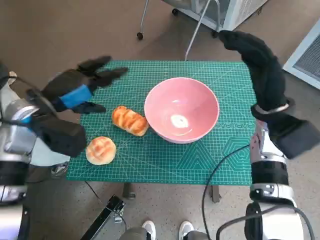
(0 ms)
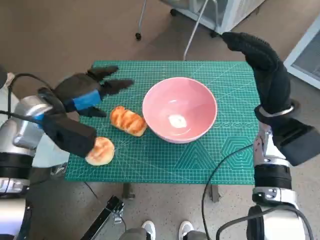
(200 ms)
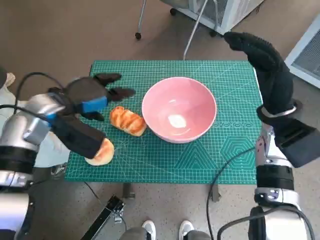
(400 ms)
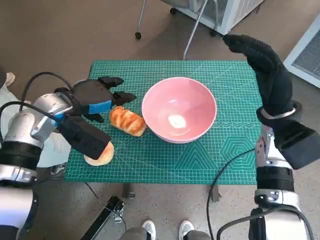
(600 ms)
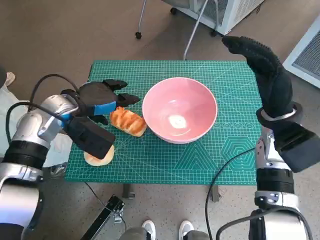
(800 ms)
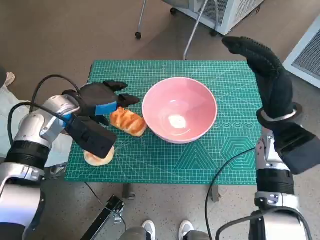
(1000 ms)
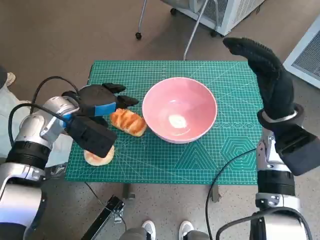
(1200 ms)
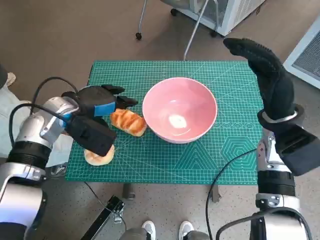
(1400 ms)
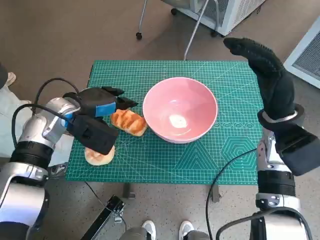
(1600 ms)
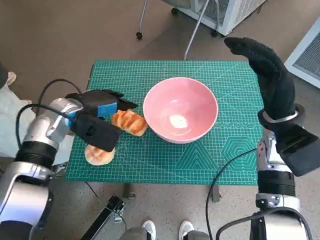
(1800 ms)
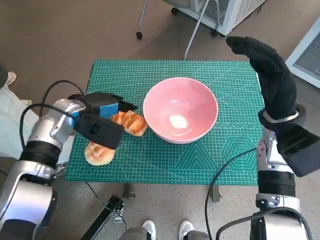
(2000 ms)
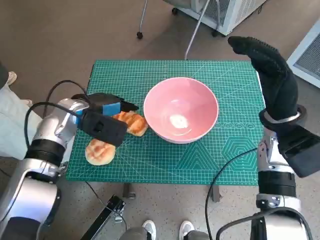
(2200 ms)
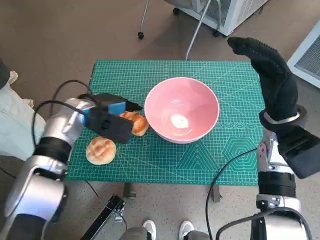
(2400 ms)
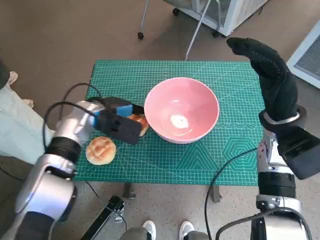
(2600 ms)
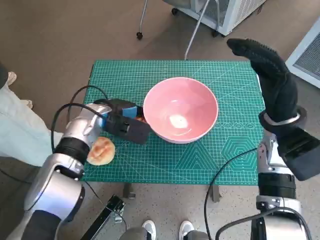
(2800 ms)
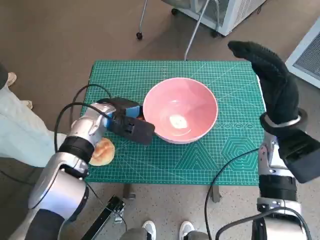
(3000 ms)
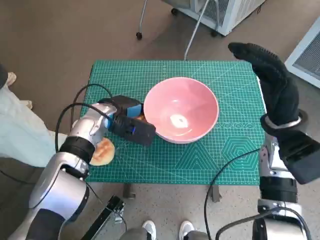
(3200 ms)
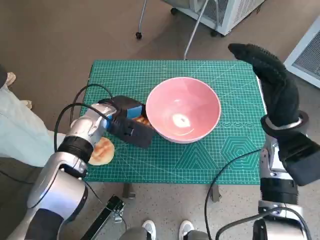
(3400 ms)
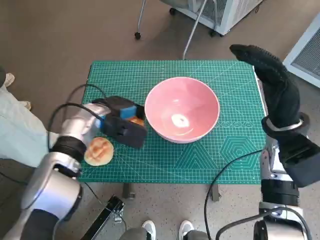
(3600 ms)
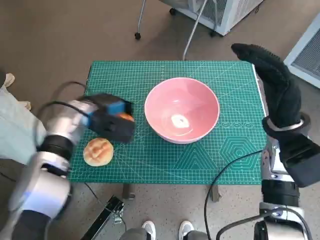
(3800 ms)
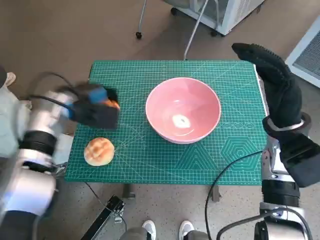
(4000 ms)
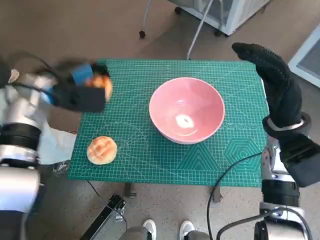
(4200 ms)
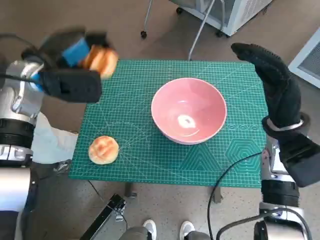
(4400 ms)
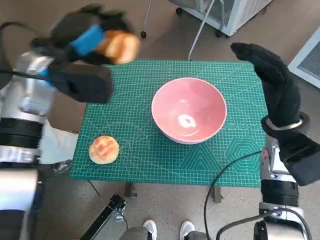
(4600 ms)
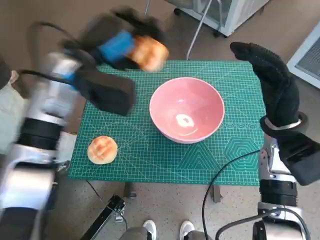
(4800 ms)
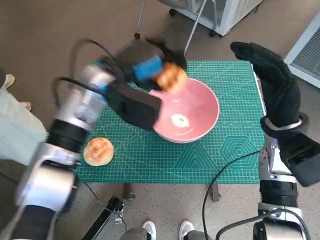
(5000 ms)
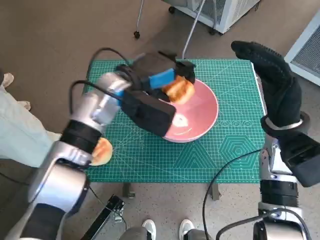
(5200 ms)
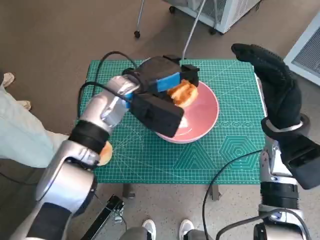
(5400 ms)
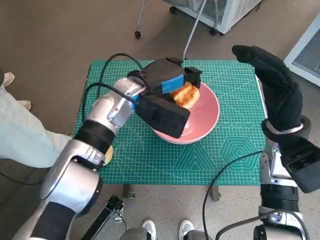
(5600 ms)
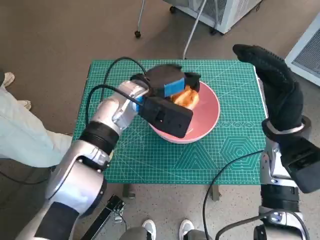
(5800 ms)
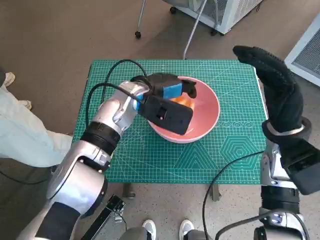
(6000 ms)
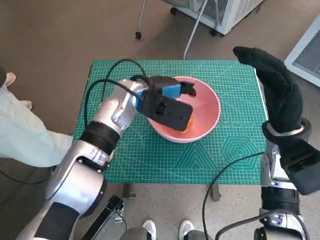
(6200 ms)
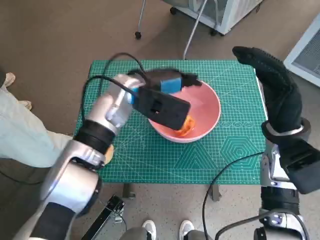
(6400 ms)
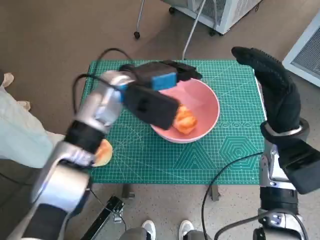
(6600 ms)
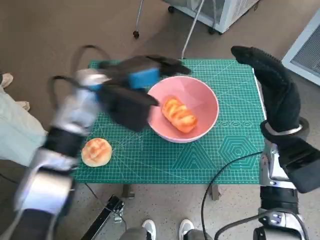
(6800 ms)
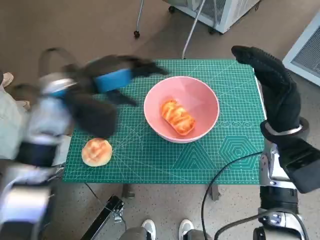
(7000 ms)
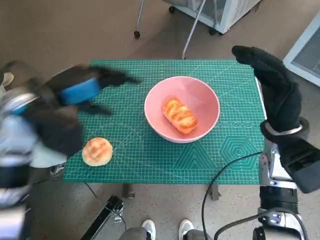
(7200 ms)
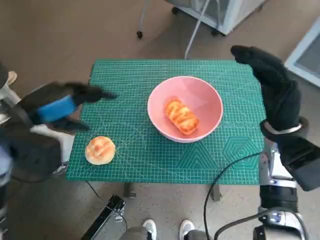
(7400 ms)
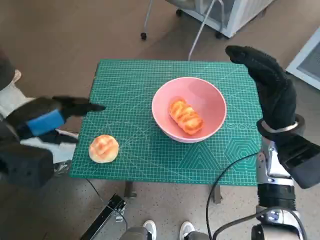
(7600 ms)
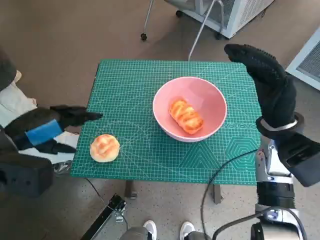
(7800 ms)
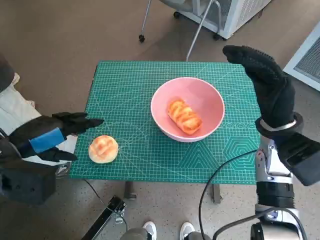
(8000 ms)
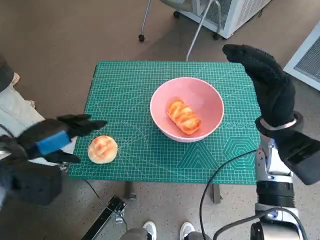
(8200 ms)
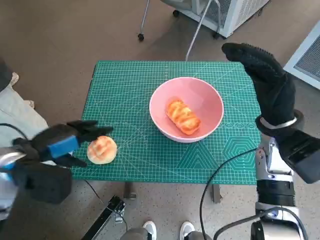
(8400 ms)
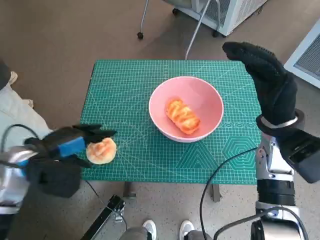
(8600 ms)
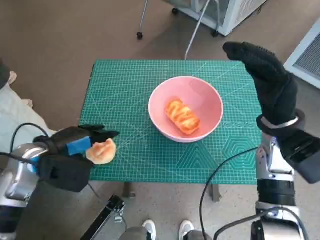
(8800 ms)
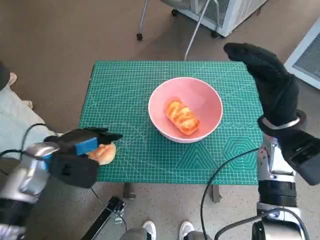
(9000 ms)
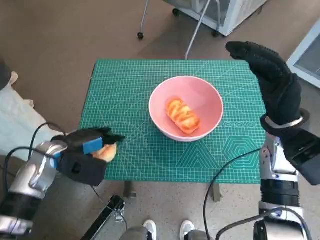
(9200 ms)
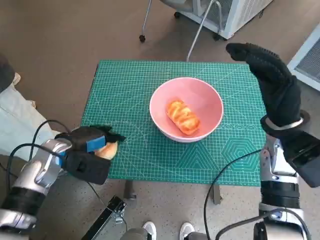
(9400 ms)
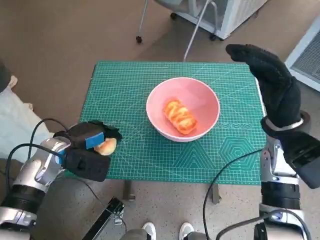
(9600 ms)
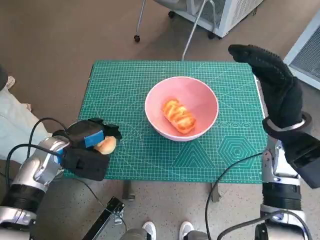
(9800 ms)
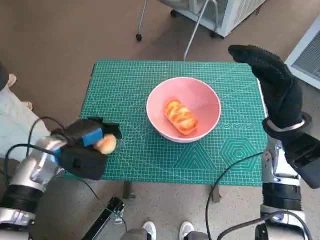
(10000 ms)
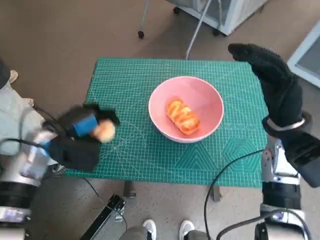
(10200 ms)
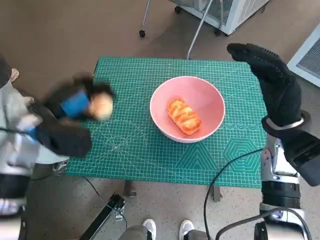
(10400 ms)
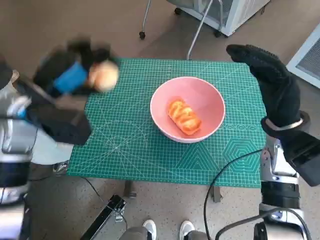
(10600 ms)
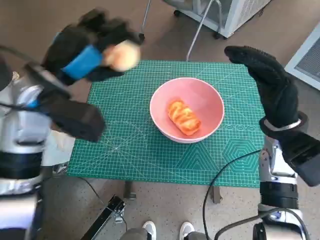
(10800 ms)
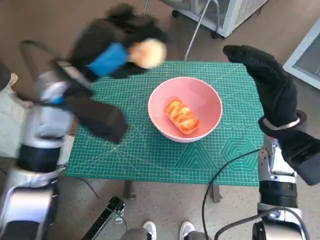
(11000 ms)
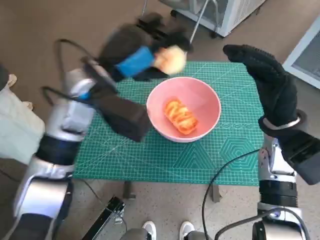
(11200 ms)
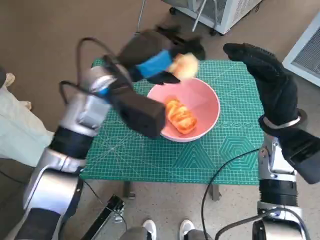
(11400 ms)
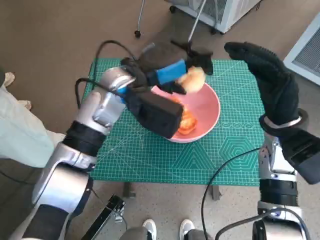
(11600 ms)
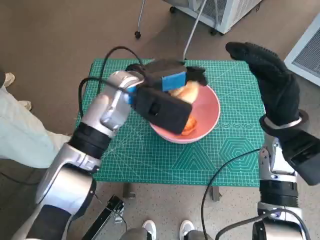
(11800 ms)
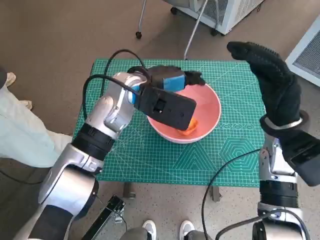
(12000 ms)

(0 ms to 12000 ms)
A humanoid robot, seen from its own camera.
Task of the whole recording: Push the bowl to the center of the table and put the bread into the bowl.
Step, 0 ms - 3200 ms: Grasp the long bread with left hand.
Step, 3400 ms - 6600 ms: Place the long bread in pink bowl with left hand.
Step, 6800 ms - 9800 ms: Grasp the round bread with left hand.
0 ms - 1600 ms: The left hand moves some 5 cm.
1600 ms - 3000 ms: The left hand heads to the right, covering approximately 5 cm.
3000 ms - 4400 ms: The left hand travels upward and to the left by some 15 cm.
4400 ms - 6000 ms: The left hand shifts about 15 cm to the right.
6000 ms - 7600 ms: The left hand goes about 25 cm to the left and backward.
7600 ms - 9000 ms: The left hand shifts about 10 cm downward.
9000 ms - 10400 ms: The left hand is displaced upward by roughly 5 cm.
10400 ms - 12000 ms: The left hand is displaced to the right by some 20 cm.

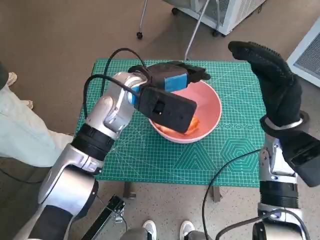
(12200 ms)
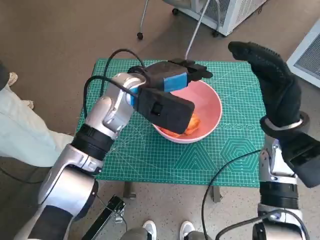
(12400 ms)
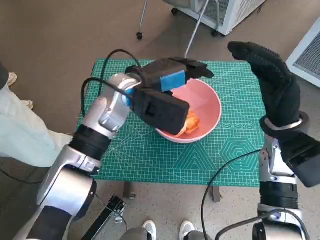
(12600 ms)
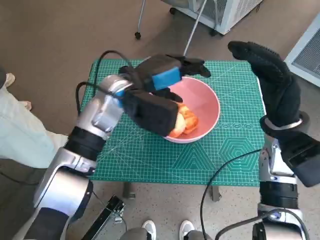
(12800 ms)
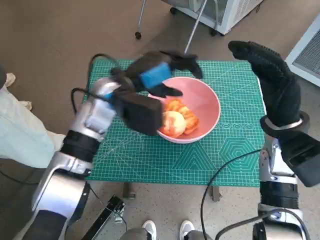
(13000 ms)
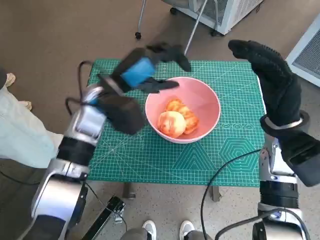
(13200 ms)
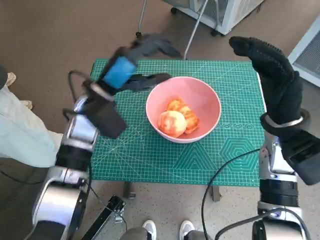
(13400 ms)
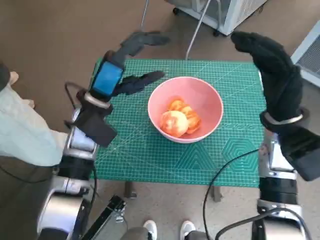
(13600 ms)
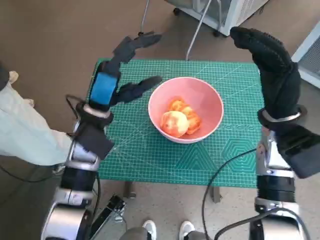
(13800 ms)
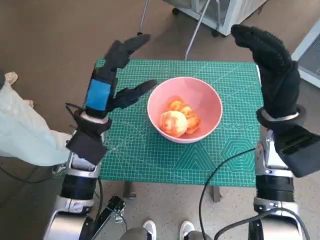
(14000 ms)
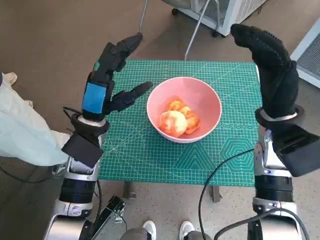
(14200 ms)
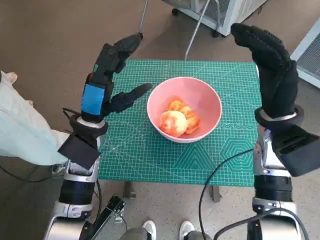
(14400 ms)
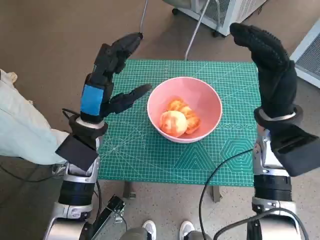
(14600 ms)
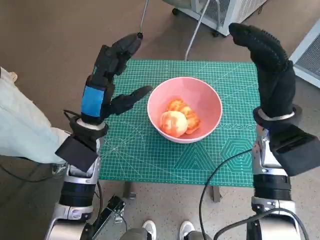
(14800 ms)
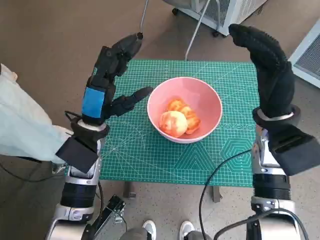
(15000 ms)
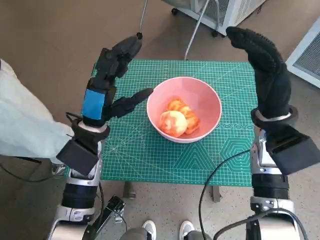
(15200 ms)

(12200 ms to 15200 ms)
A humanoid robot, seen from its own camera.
Task of the whole recording: Push the bowl to the center of the table and put the bread into the bowl.
12200 ms - 13800 ms: The left hand heads to the left and downward, covering approximately 10 cm.

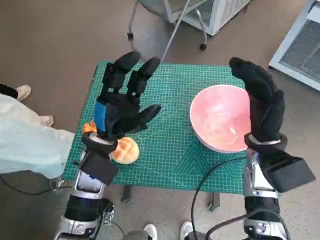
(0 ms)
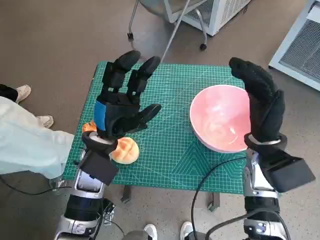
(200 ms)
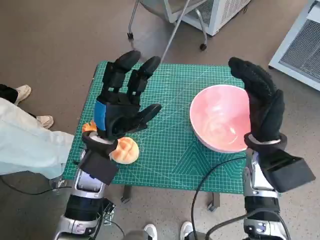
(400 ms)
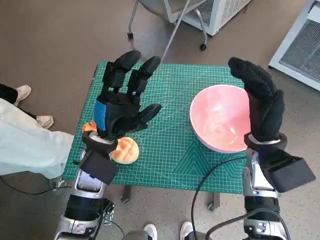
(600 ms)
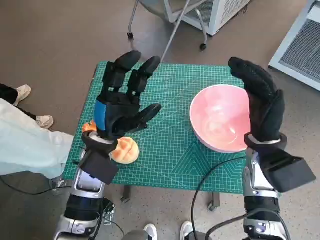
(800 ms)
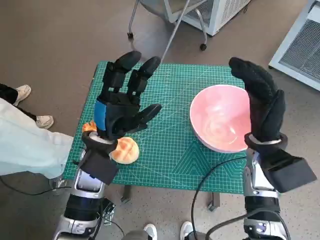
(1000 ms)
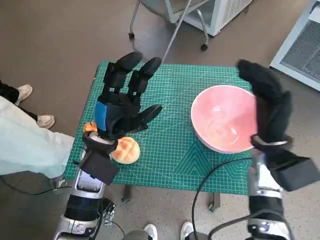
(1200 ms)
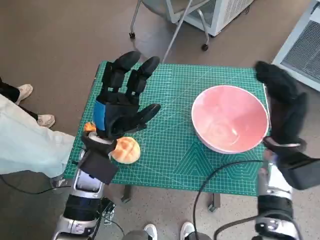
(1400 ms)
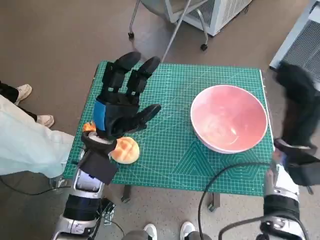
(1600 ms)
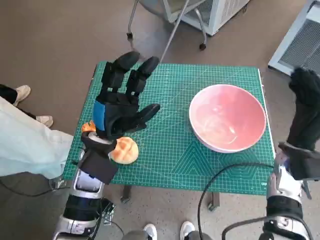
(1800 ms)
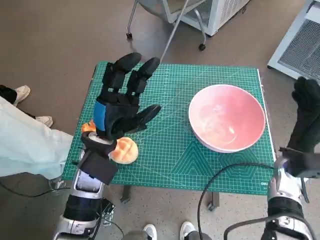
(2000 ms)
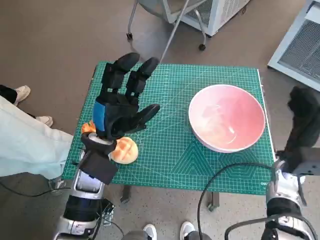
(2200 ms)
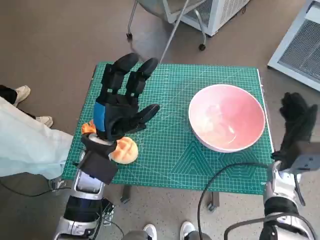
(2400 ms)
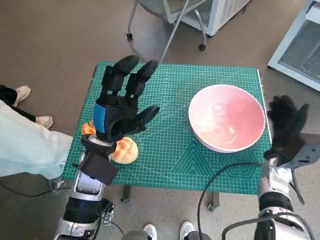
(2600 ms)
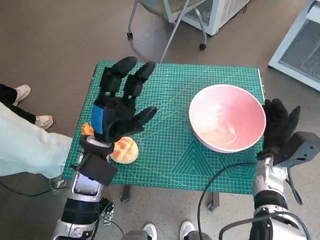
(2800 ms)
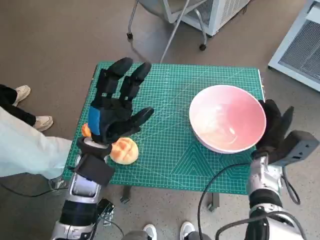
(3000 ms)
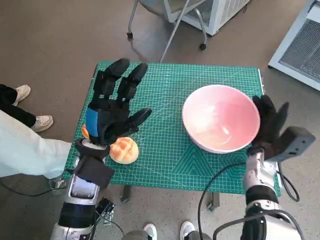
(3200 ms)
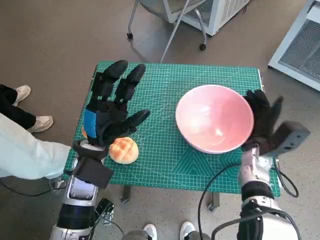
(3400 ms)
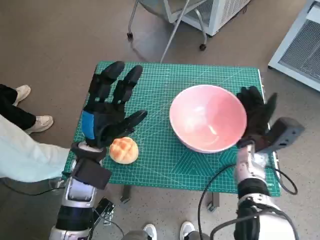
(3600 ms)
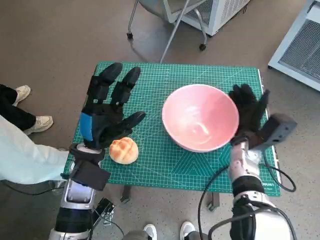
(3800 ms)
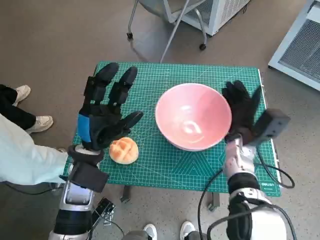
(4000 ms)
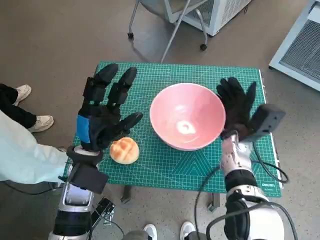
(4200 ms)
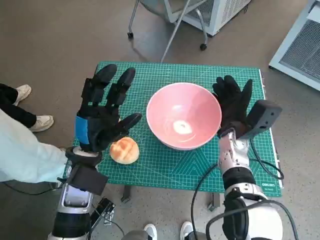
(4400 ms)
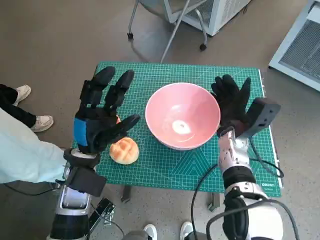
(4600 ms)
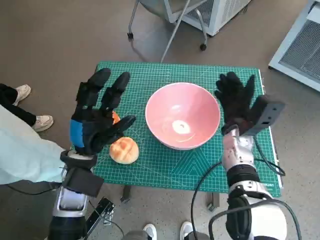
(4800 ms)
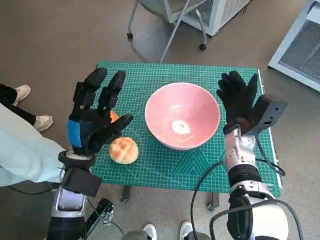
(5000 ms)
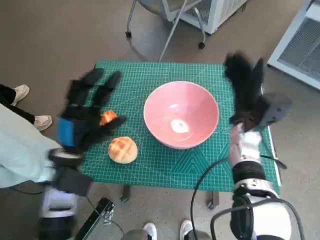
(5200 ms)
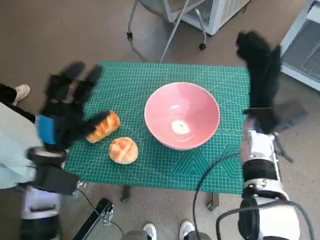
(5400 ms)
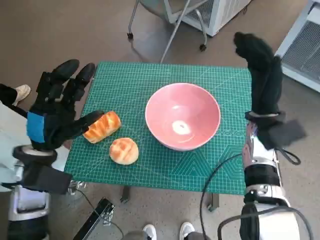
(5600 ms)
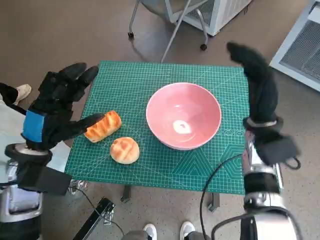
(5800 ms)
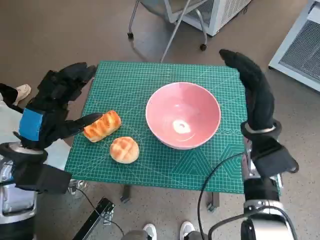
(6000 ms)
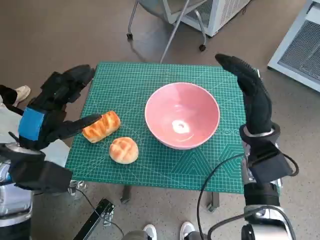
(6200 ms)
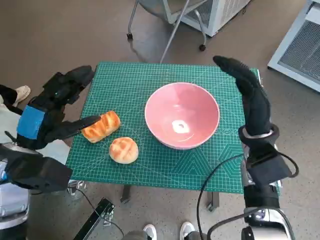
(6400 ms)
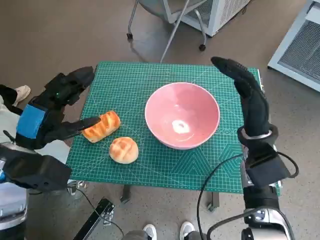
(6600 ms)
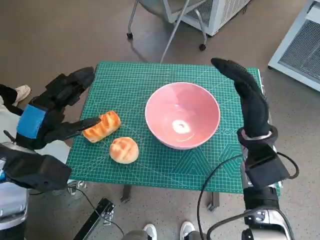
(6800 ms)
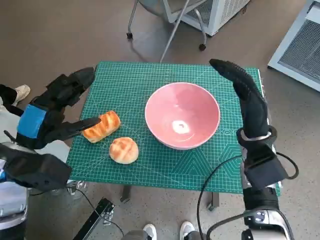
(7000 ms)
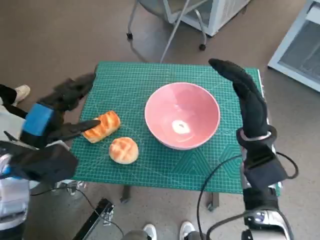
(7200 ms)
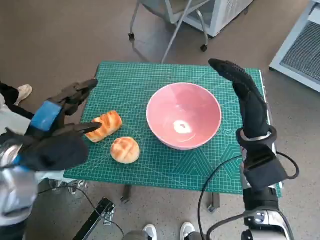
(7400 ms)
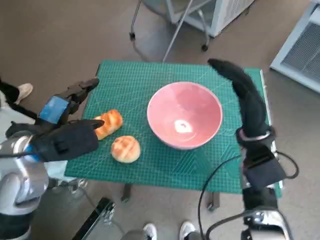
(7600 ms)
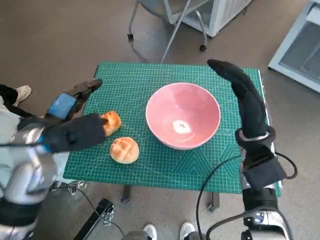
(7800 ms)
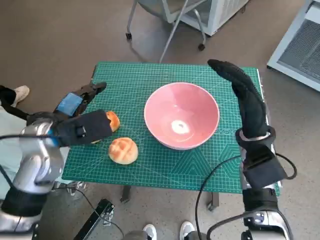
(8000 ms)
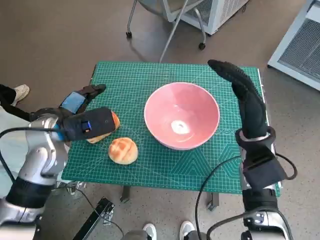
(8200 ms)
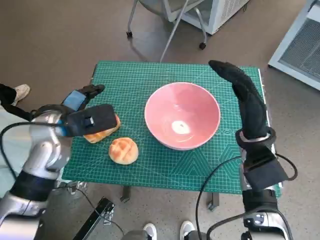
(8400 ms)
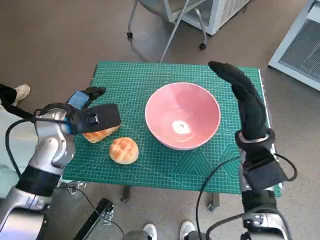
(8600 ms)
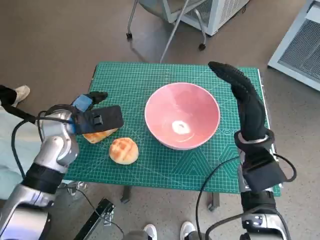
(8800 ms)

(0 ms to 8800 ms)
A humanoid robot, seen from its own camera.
Task of the whole recording: Push the bowl to the center of the table and put the bread into the bowl.
Step, 0 ms - 4800 ms: Move the pink bowl to the center of table with right hand.
1400 ms - 3000 ms: The right hand moves downward, roughly 10 cm.
3000 ms - 4400 ms: The right hand heads to the left, covering roughly 10 cm.
4400 ms - 5800 ms: The left hand is displaced to the left by approximately 5 cm; the right hand moves upward, roughly 5 cm.
7400 ms - 8800 ms: The left hand travels forward by some 10 cm.
